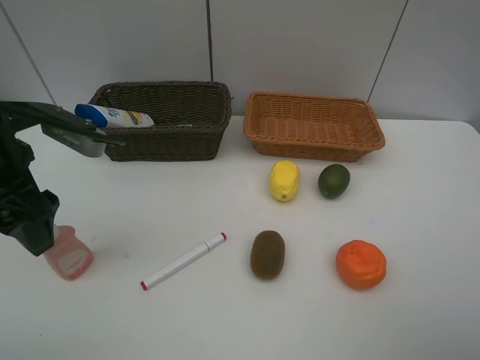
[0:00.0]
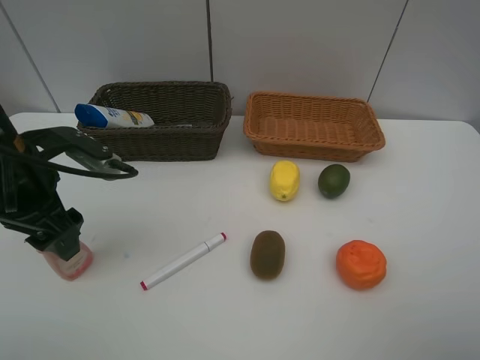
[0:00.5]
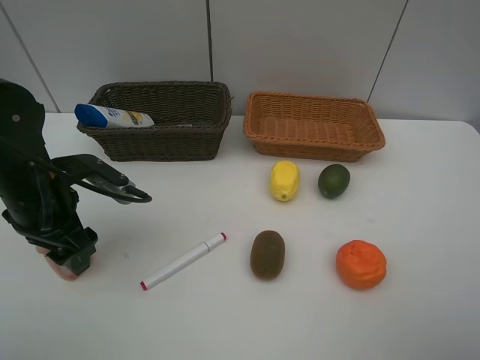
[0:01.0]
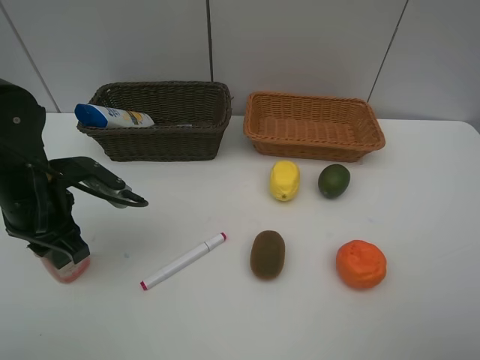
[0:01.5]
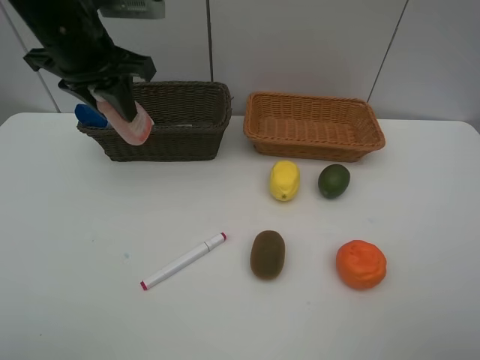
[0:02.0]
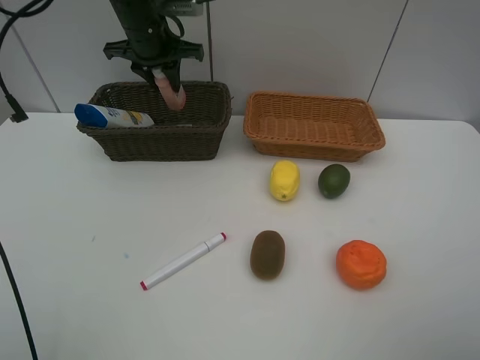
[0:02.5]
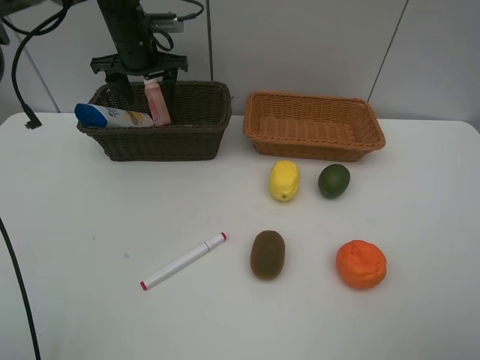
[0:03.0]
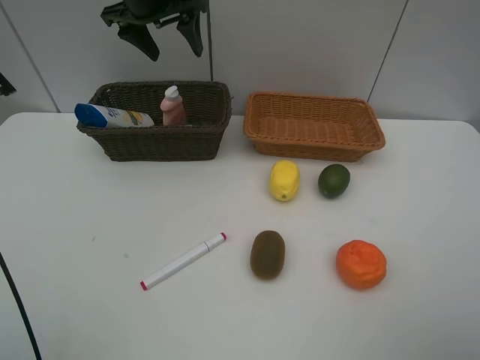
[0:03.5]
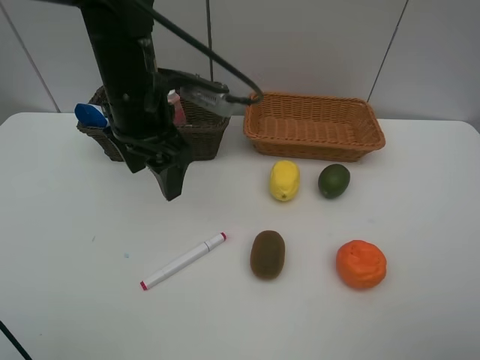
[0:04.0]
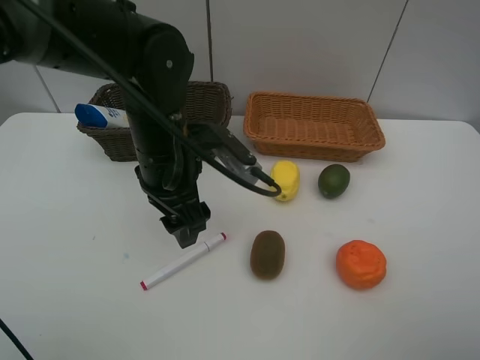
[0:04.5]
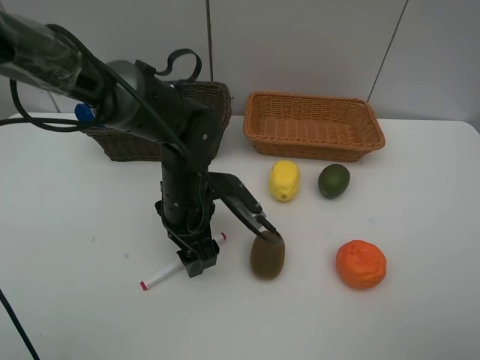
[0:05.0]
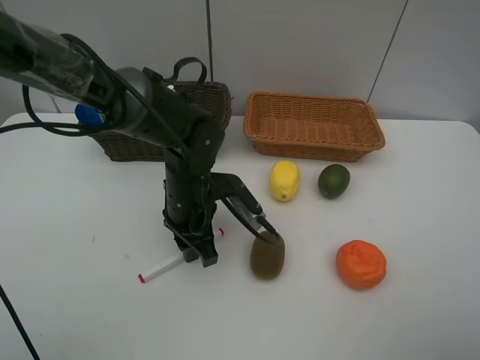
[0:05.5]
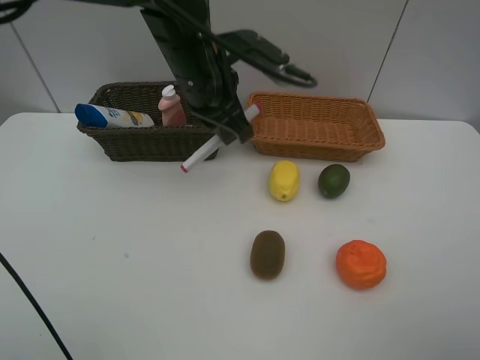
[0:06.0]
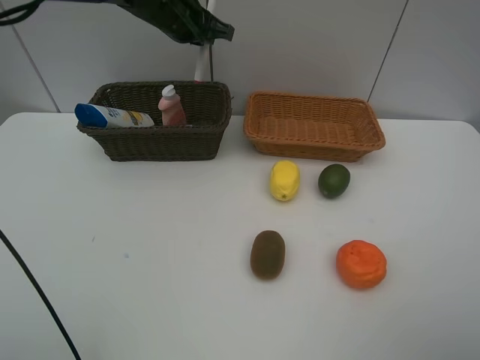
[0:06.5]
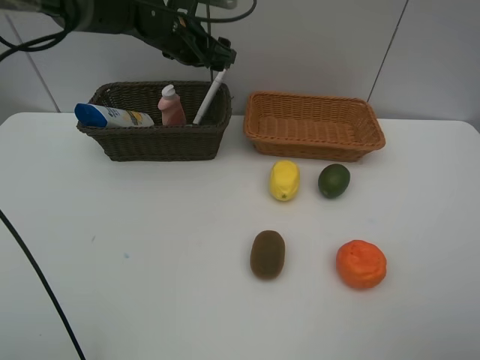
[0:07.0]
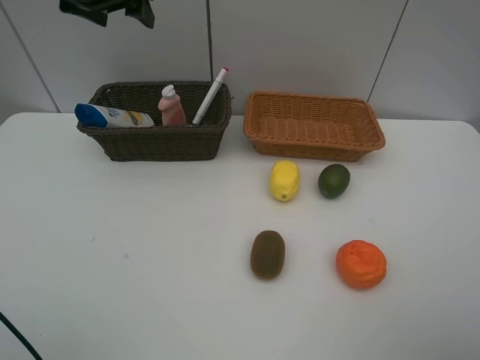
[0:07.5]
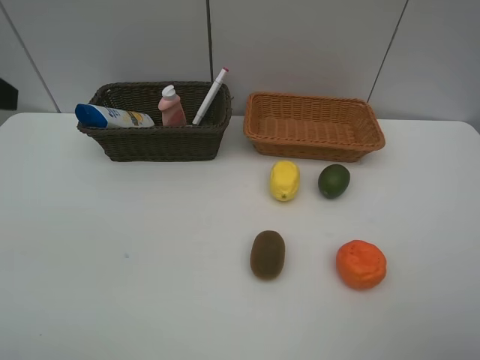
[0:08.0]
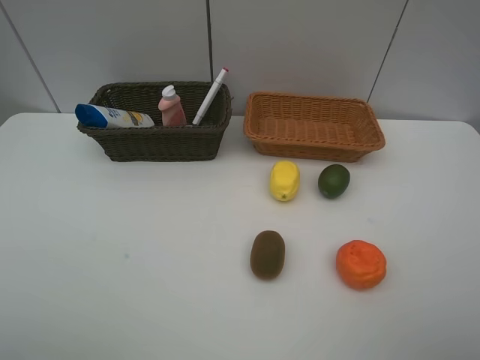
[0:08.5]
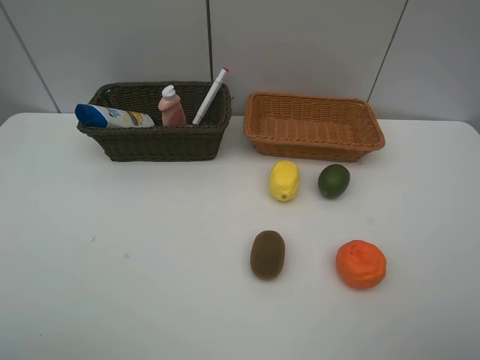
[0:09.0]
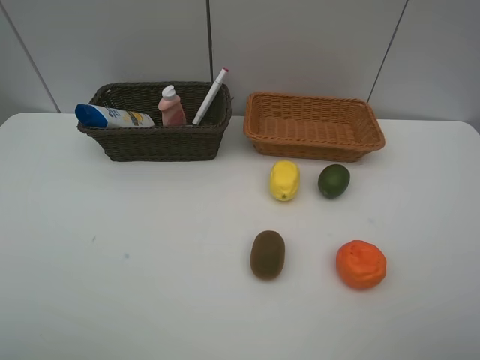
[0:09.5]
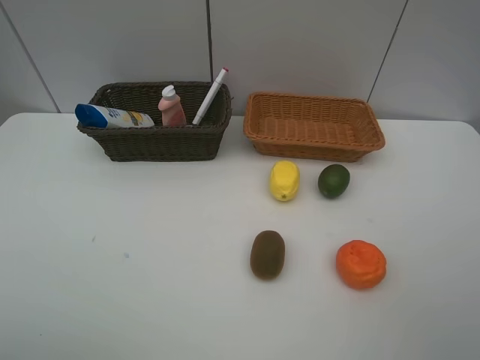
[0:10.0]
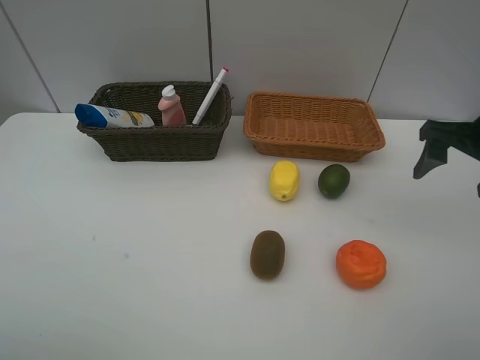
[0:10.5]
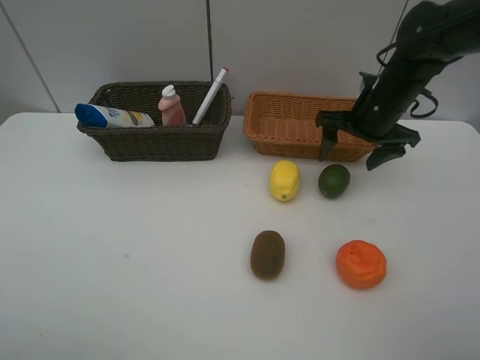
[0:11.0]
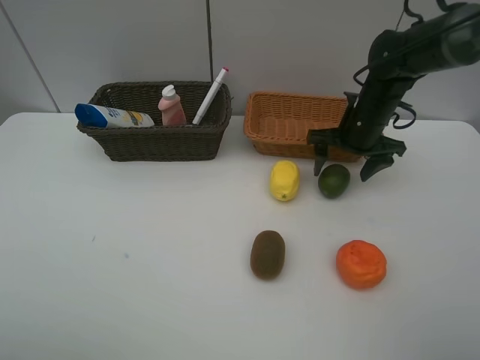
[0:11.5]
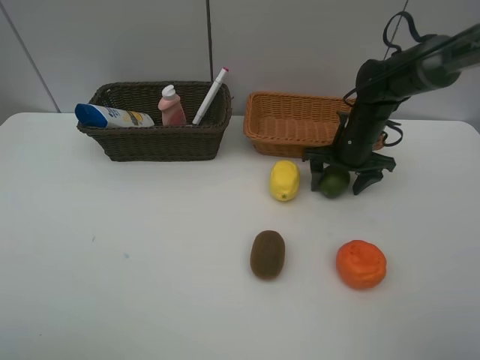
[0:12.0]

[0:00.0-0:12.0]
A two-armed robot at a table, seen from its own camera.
Task of the whole recording: Place multiple objects separately in different baskets.
Step, 0:02.0 to 0:03.0: Place the laundry detergent in the dark basket with left gripper.
Step, 0:03.5 to 0:05.5: Pick up the red marker with left gripper.
Step, 0:06.0 to 0:06.5: Place the red marker in the dark basket with left gripper.
0:00.0 to 0:02.0: The left gripper shifts about 15 cm forward, upward and to the right, and closes.
0:02.0 to 0:04.0: The left gripper travels downward and to the right by approximately 10 cm, moves roughly 15 cm forward and comes back, and opens its fingers.
0:04.0 to 0:06.0: The left gripper shifts roughly 10 cm forward and to the right, goes downward and returns, roughly 15 cm each way, and closes up.
0:06.0 to 0:08.0: The left gripper goes some 30 cm to the left and backward, and opens.
0:10.0 to 0:12.0: The right gripper goes some 35 cm forward, downward and to the left, and closes its fingers.

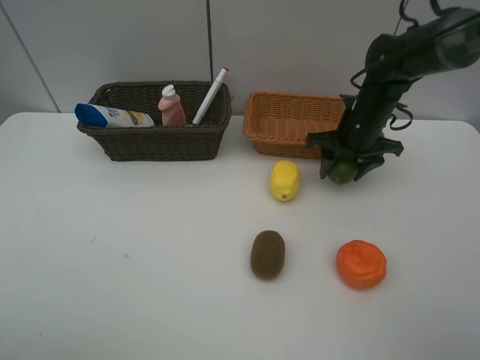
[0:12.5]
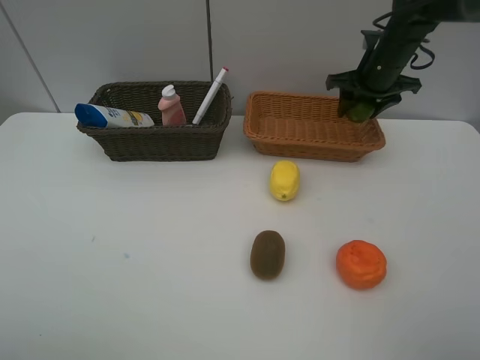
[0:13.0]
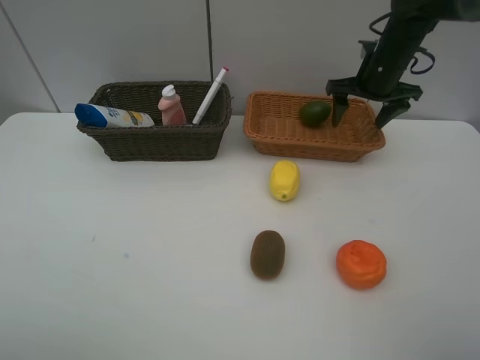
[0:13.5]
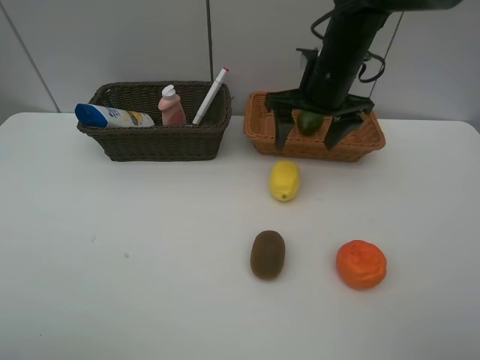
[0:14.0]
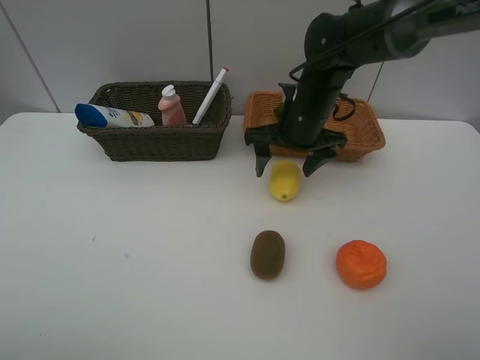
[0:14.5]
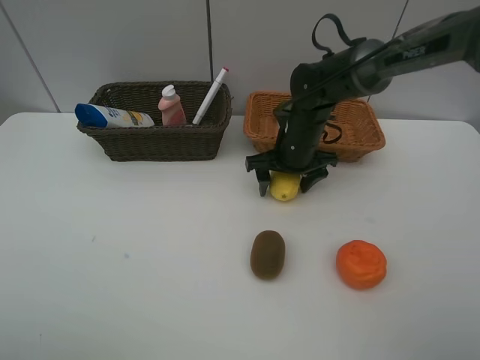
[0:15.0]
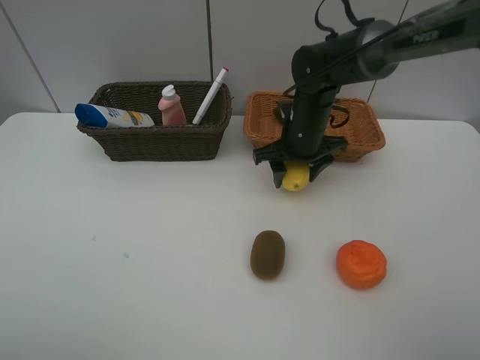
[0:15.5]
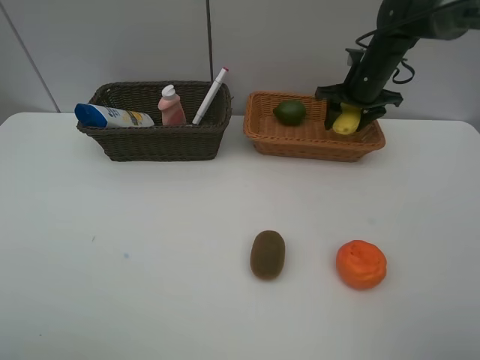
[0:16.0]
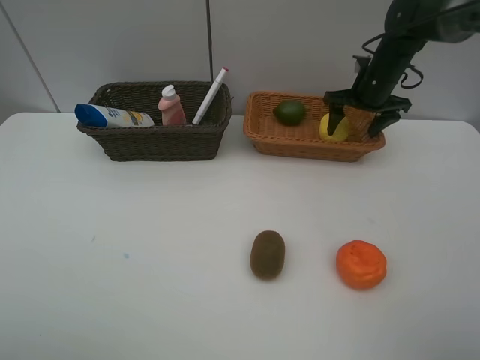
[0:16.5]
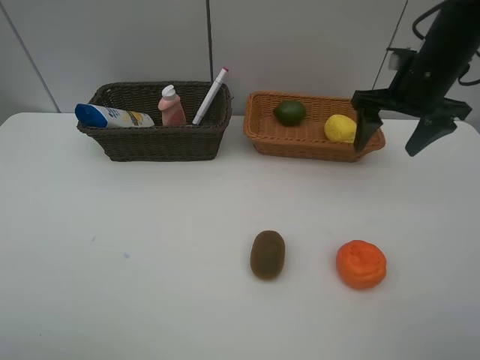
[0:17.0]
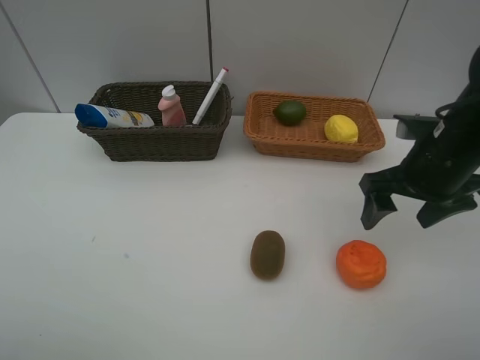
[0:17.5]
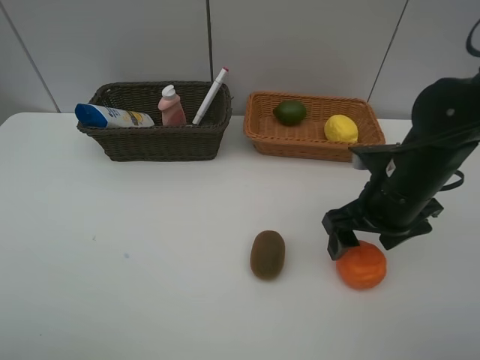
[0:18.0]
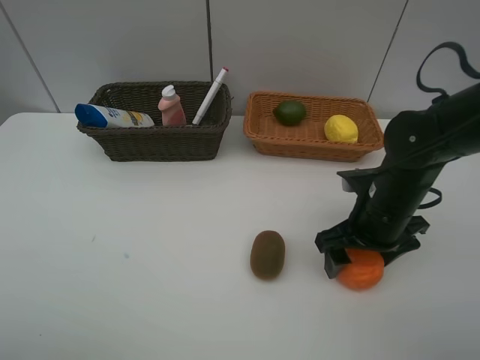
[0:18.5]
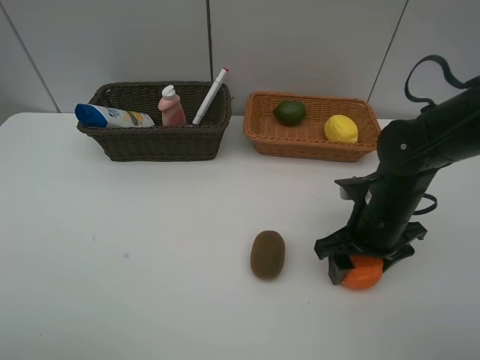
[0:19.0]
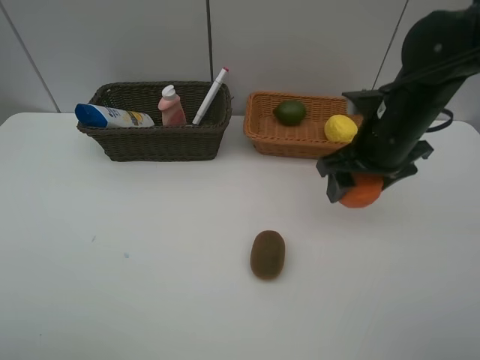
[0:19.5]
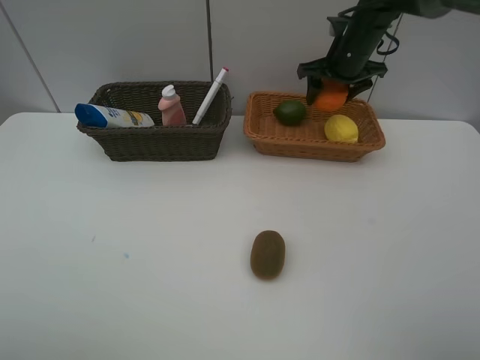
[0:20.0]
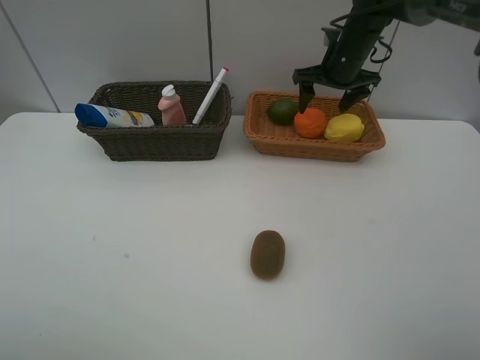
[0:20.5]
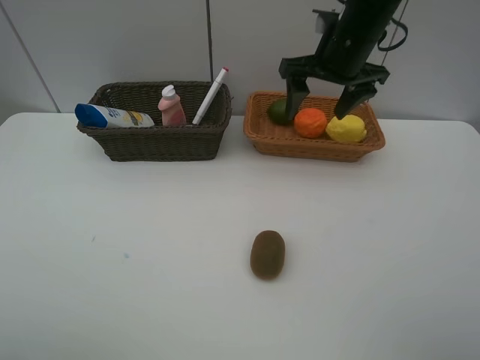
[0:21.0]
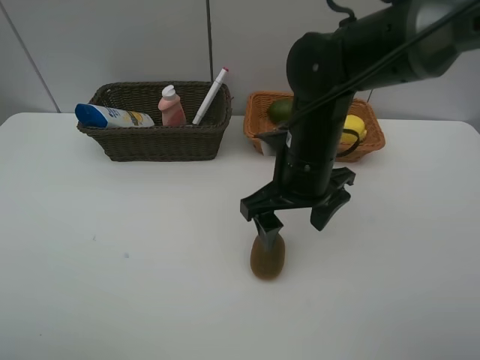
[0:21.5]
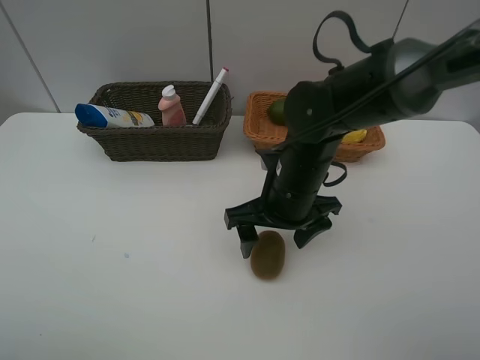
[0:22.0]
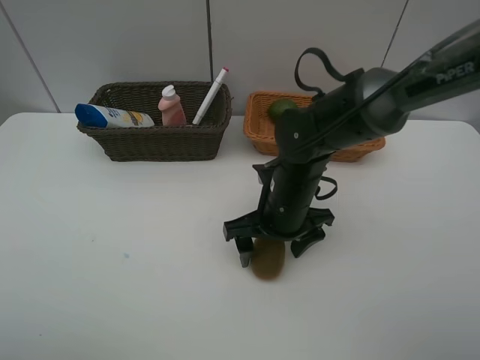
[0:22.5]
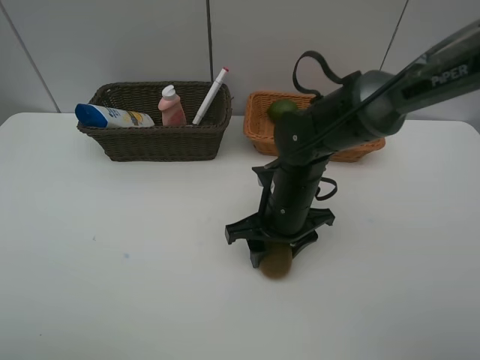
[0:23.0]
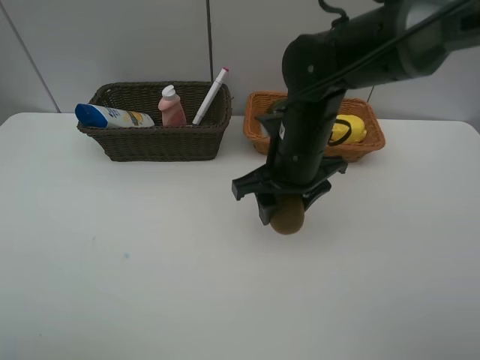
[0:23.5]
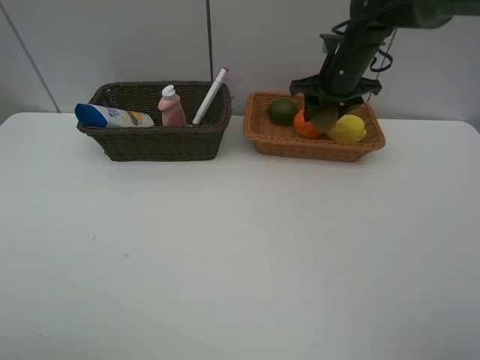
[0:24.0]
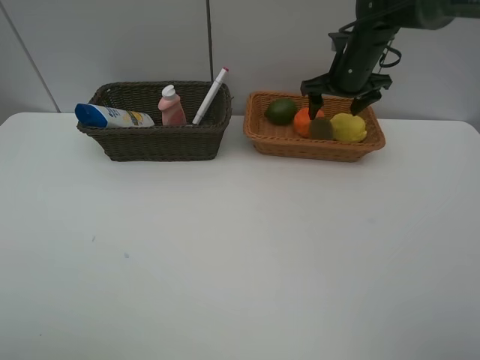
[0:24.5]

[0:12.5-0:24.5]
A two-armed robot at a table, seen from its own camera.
Task of the whole recording: Place multiple objects separately in different baskets.
Step, 0:13.5 to 0:15.5: Pick up the lemon with right gripper.
Step, 0:16.0 to 0:16.5: Place the lemon in the light basket with right gripper.
Step, 0:17.0 to 0:19.0: Pick up the orange with right gripper.
Step, 0:19.5 to 0:20.0: Place the orange in the light basket with right gripper.
Step, 0:20.5 to 0:23.0: Pick up kiwi with right gripper.
Step, 0:23.5 to 0:24.0: Place the kiwi in the light basket with right gripper.
0:12.5 to 0:14.5: The right gripper heads to the left, covering roughly 10 cm, and opens.
0:14.5 to 0:16.5: The right gripper moves to the right and forward, about 20 cm, and closes, then reopens.
0:16.5 to 0:18.5: The right gripper travels backward by about 25 cm.
0:18.5 to 0:20.5: The right gripper shifts about 25 cm forward, and closes and opens again.
0:20.5 to 0:22.5: The right gripper moves backward, downward and to the left, approximately 30 cm.
0:22.5 to 0:24.5: The right gripper shifts about 25 cm forward, to the right and upward, and closes and opens again.

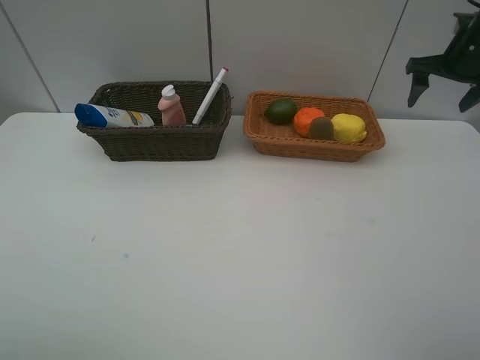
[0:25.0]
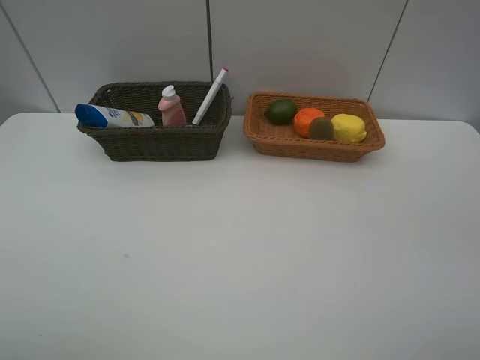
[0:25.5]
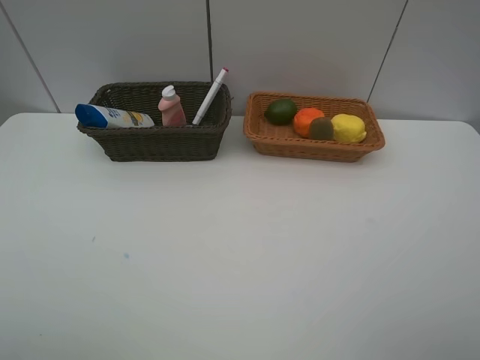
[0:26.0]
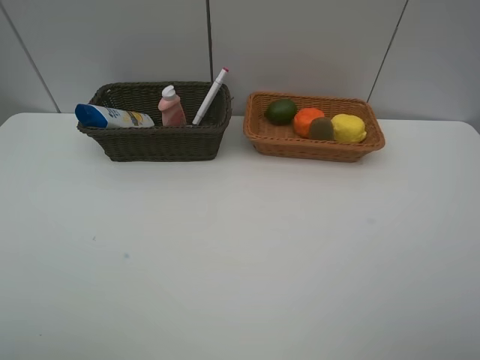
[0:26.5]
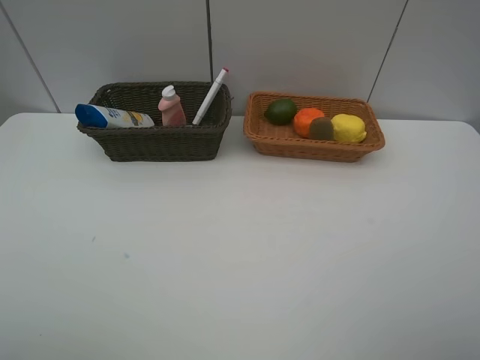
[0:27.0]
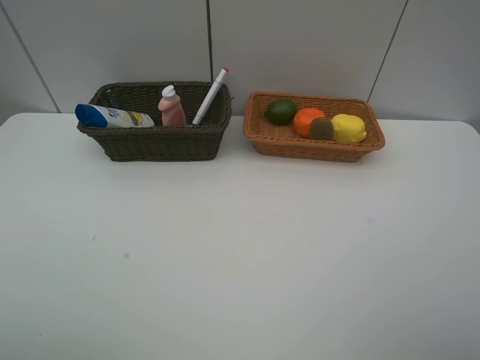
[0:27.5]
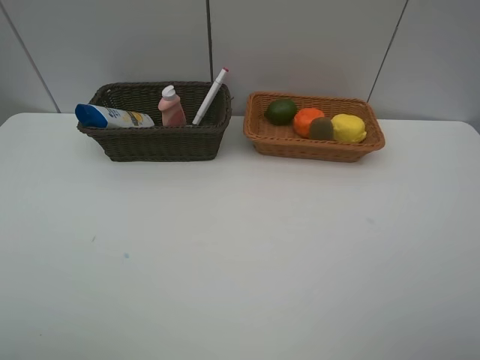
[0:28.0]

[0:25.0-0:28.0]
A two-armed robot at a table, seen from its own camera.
Task of the whole recording: Place multiple objects separately in different baskets.
0:25.0 to 0:26.5: The right gripper travels backward by some 40 cm.
0:26.5 to 0:28.0: Both grippers stay about where they are.
